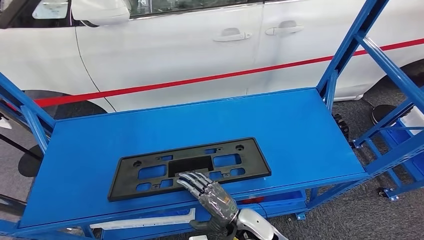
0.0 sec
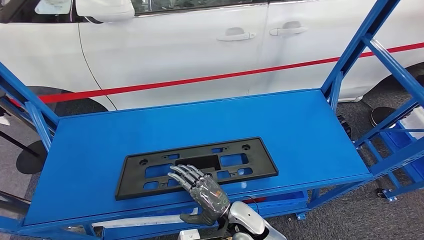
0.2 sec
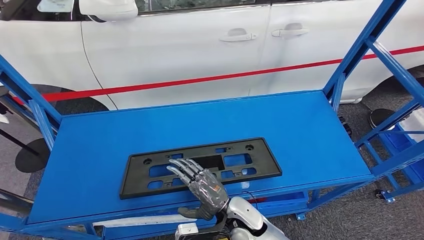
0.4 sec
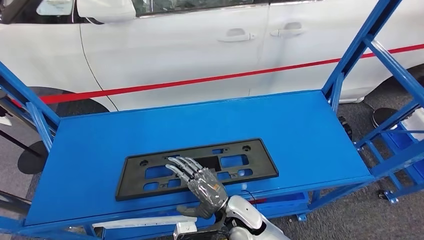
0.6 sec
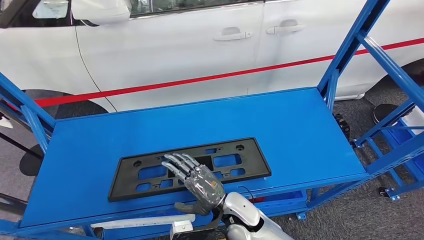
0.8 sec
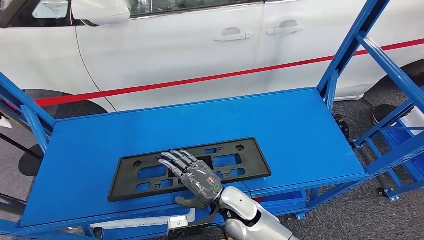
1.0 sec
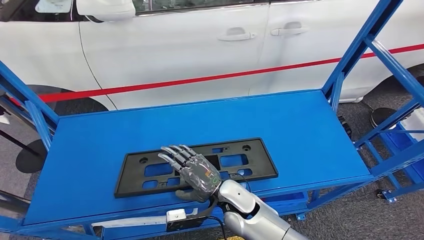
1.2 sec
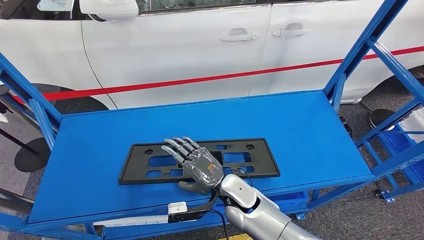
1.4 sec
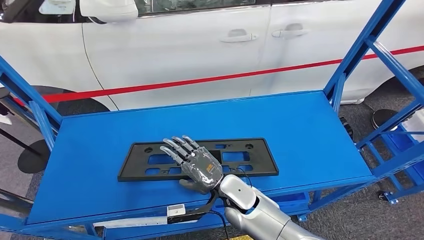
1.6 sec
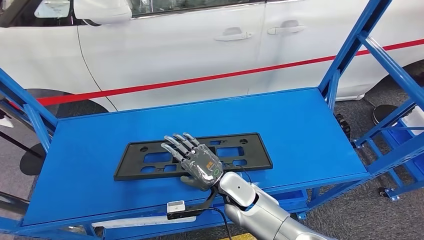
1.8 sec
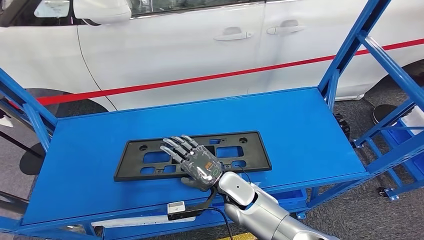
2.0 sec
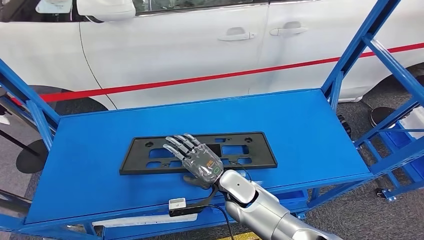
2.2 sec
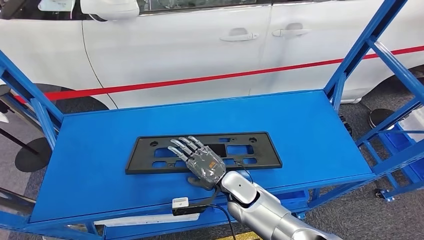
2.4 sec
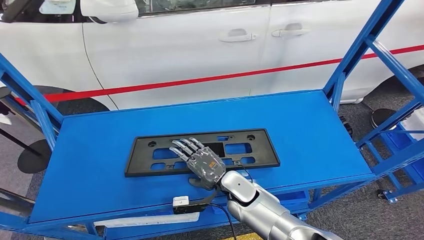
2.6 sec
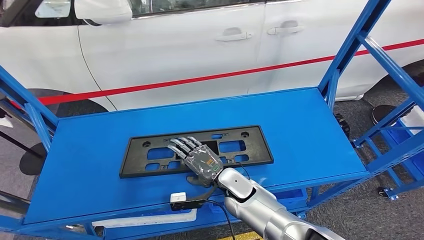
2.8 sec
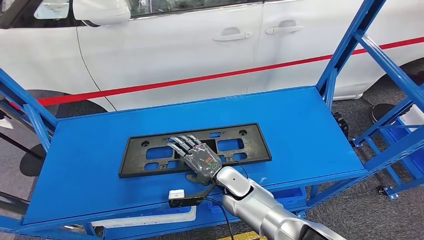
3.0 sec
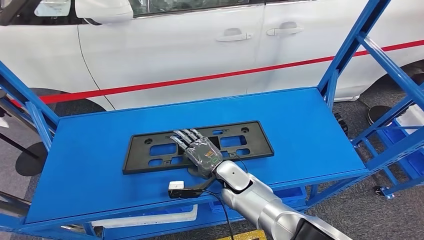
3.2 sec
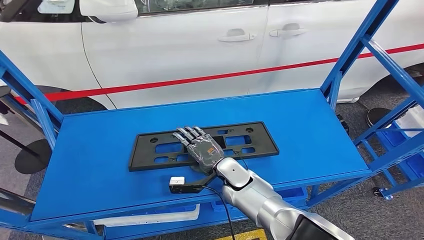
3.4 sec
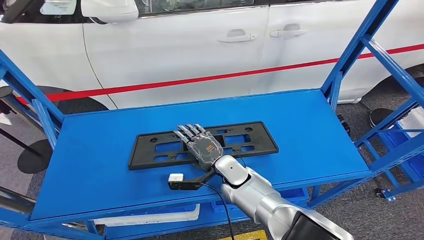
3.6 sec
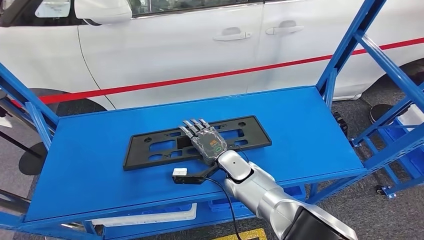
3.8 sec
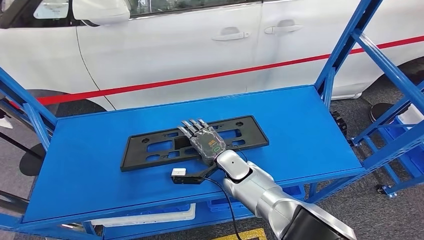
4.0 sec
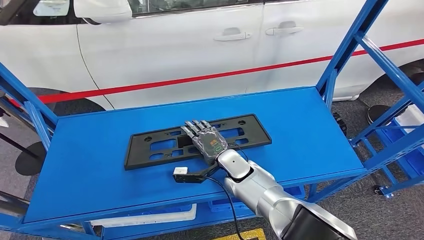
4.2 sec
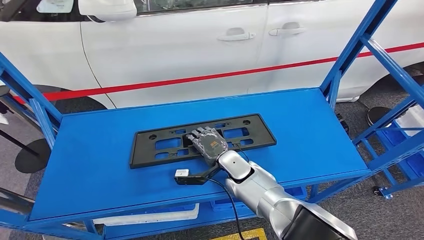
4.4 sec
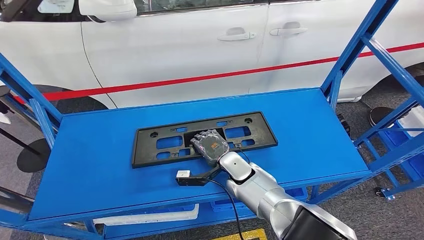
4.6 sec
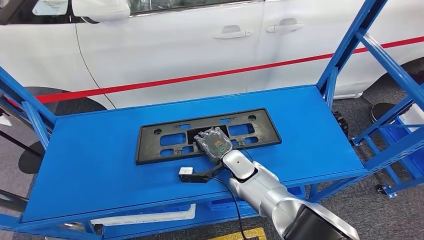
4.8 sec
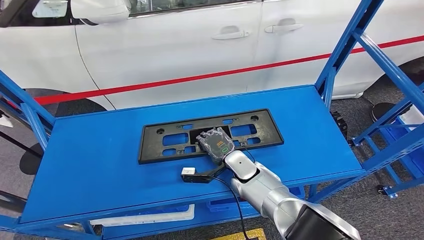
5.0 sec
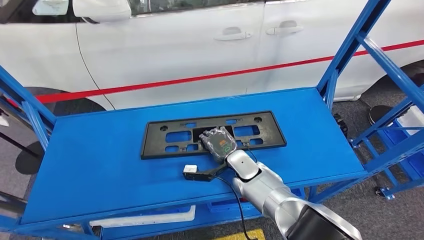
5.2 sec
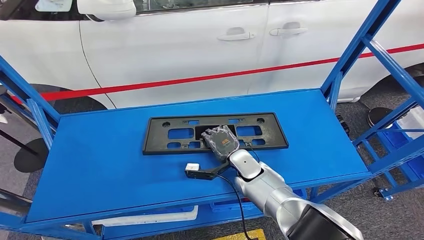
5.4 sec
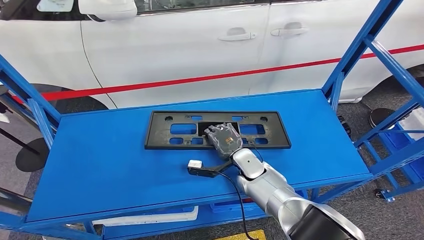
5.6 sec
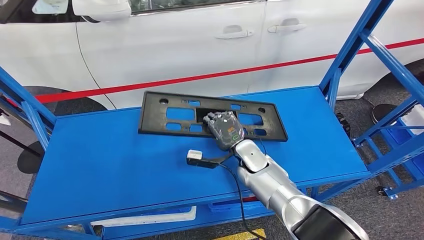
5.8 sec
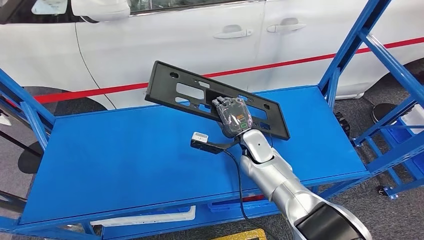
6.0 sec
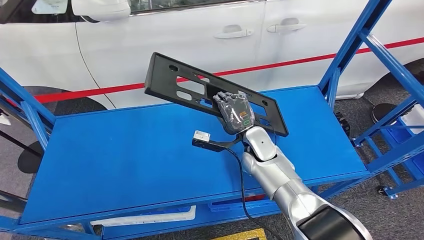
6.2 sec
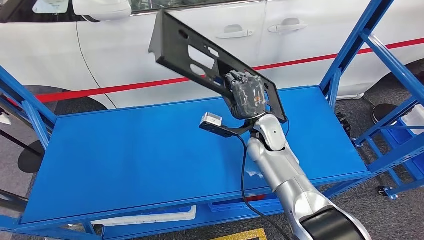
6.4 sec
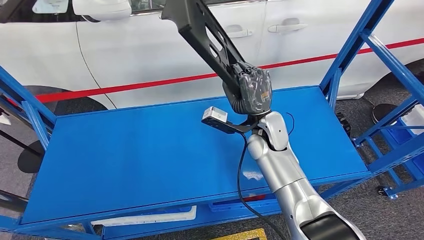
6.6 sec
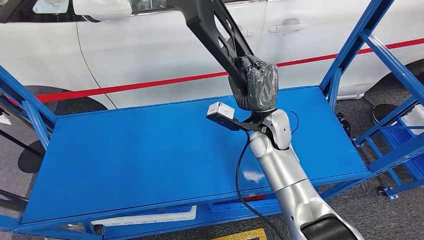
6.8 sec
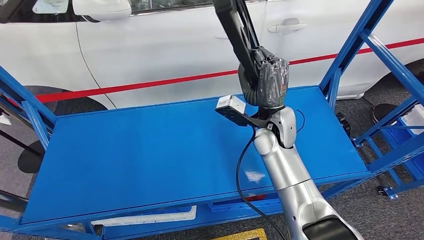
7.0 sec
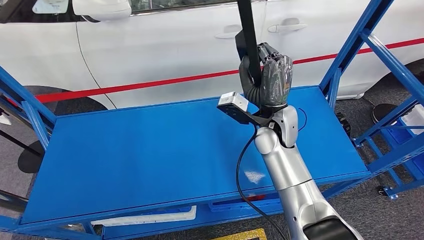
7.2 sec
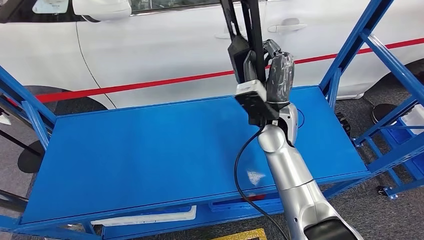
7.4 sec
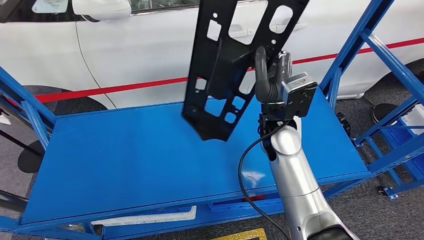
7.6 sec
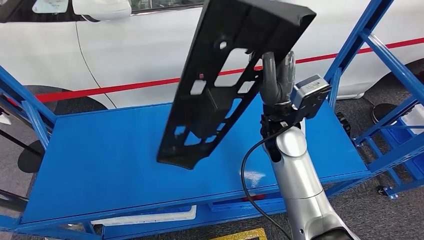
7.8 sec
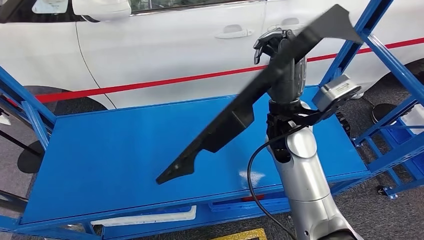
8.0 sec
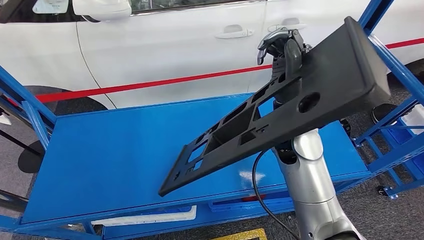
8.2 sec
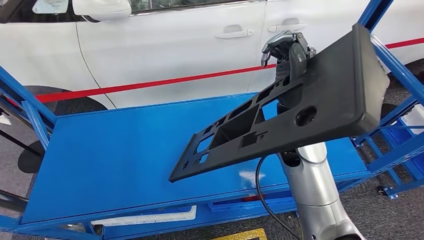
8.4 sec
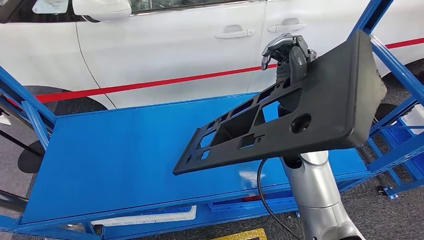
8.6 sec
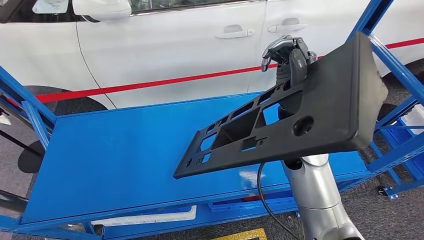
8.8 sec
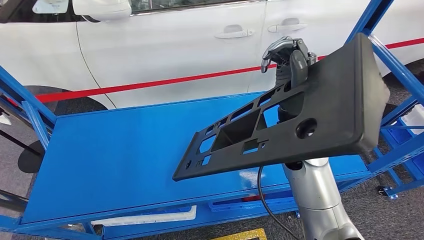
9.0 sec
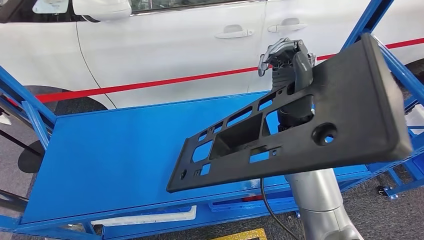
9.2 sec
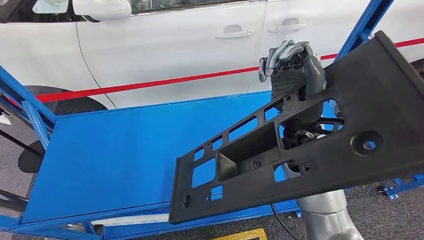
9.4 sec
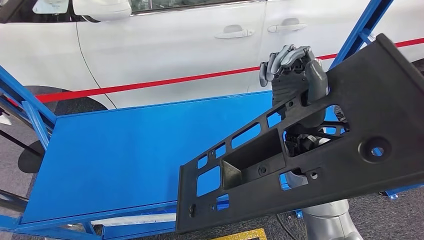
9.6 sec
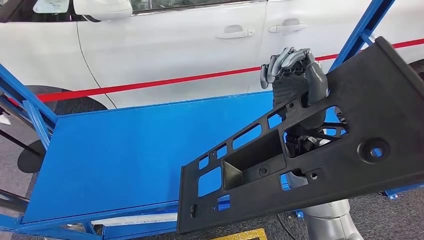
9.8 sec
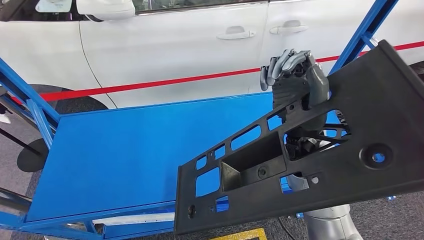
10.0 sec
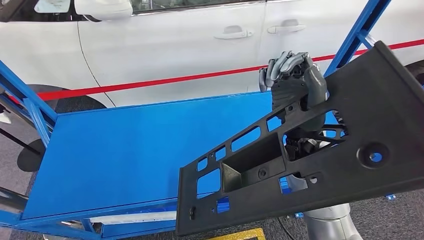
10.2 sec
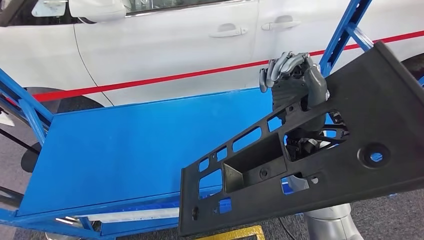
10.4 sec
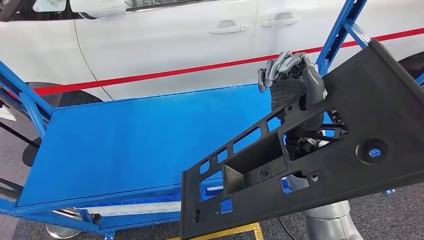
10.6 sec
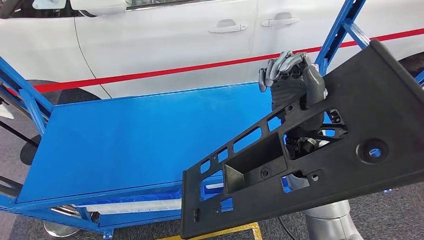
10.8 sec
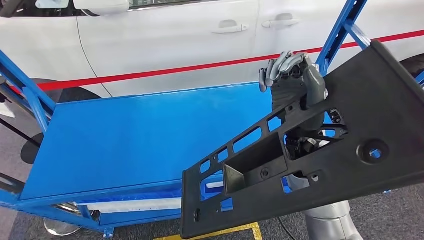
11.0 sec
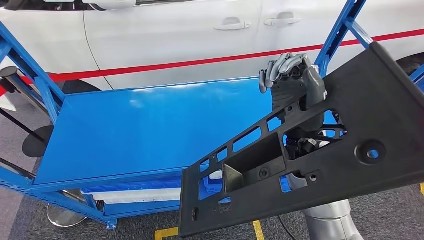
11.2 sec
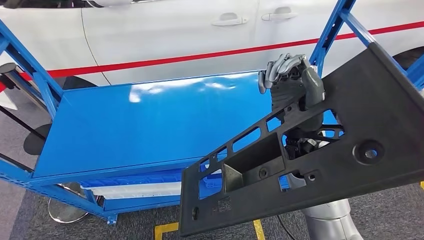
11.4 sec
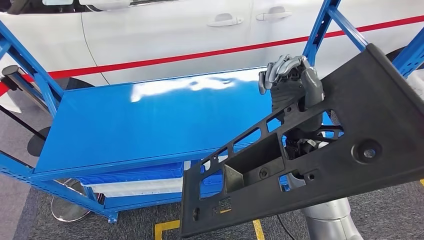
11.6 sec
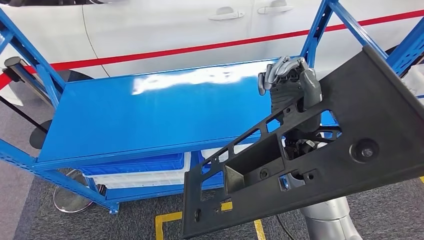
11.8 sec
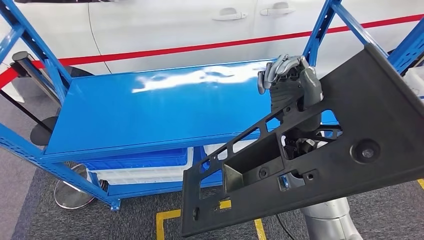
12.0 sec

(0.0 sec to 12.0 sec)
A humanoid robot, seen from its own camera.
Step, 0.0 sec - 8.0 sec: Pick up the large material from the shelf.

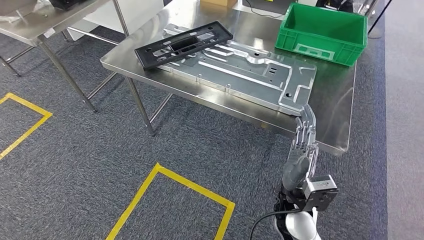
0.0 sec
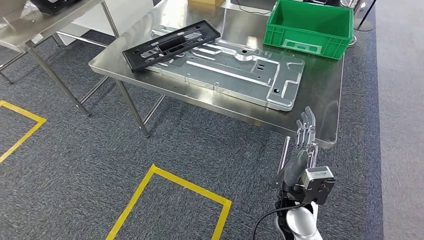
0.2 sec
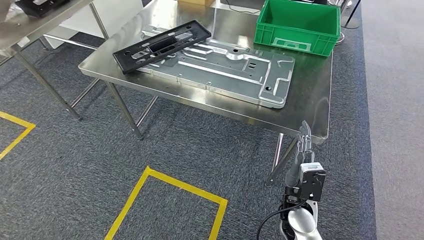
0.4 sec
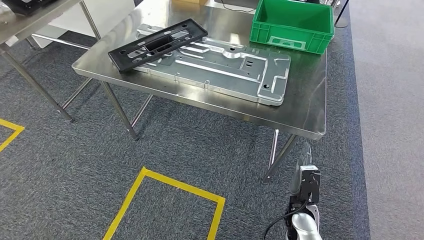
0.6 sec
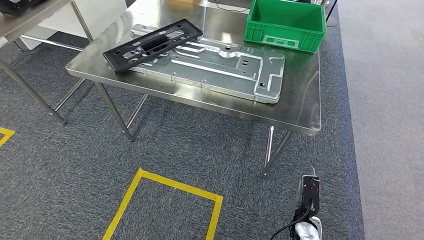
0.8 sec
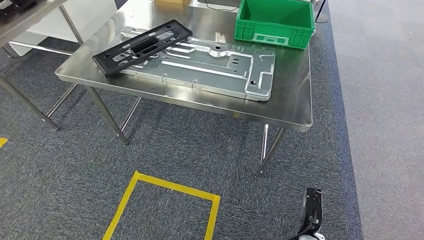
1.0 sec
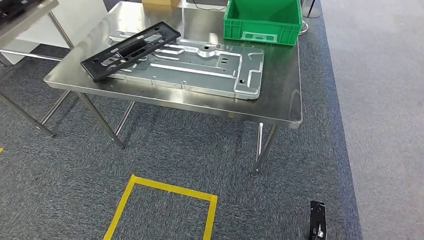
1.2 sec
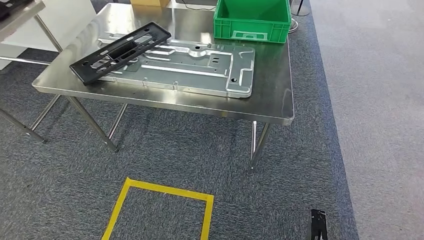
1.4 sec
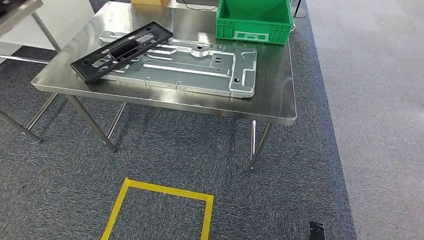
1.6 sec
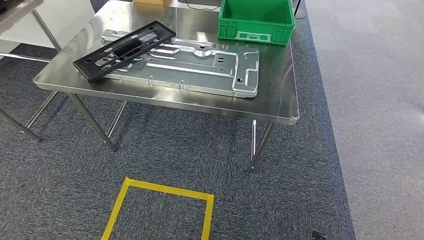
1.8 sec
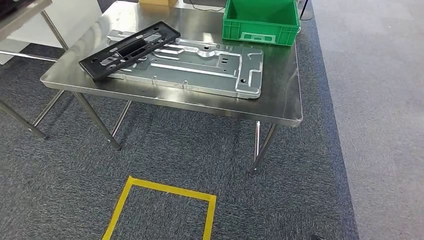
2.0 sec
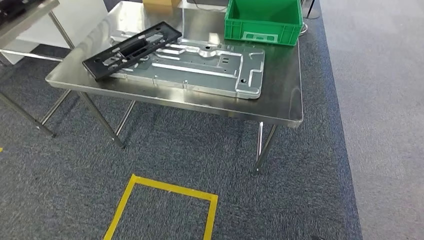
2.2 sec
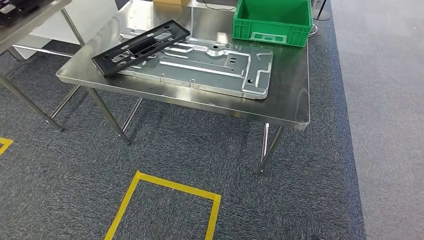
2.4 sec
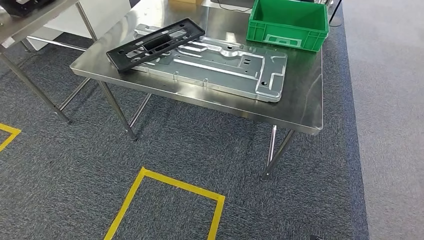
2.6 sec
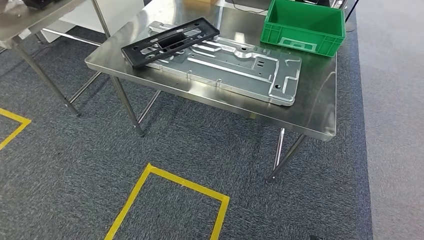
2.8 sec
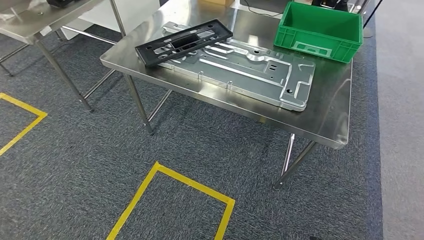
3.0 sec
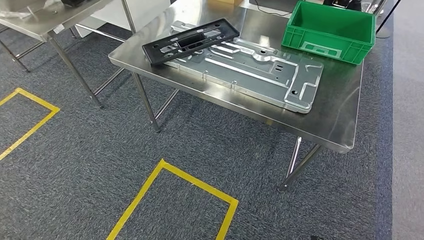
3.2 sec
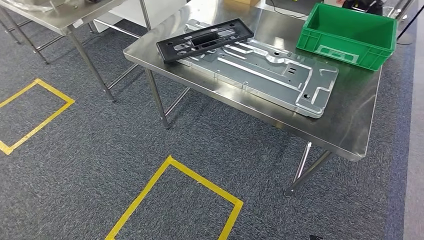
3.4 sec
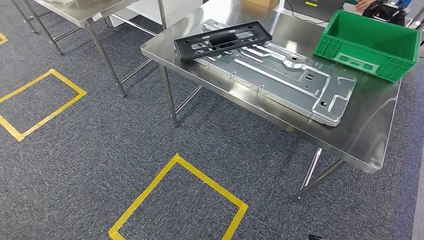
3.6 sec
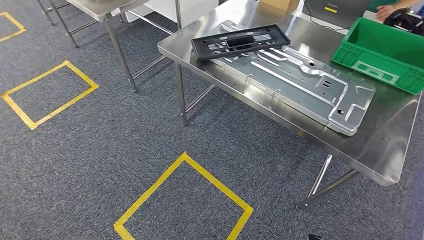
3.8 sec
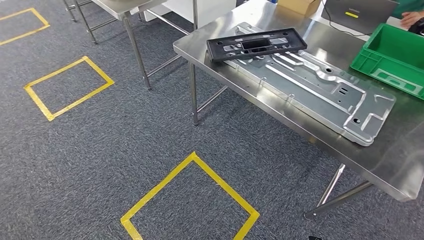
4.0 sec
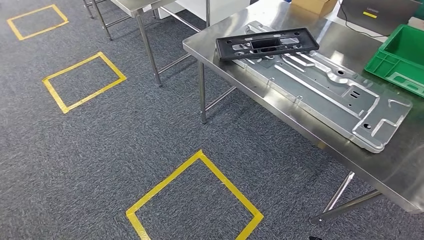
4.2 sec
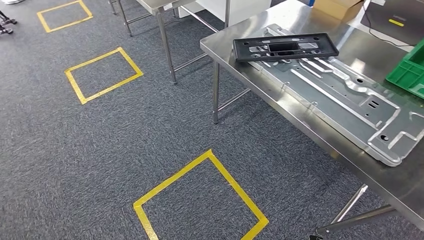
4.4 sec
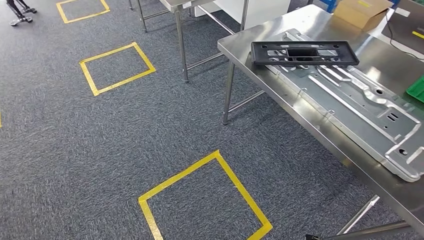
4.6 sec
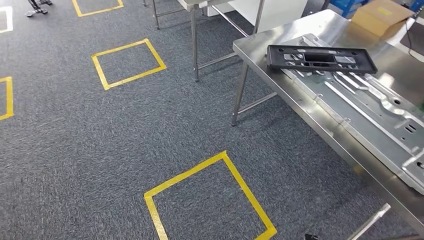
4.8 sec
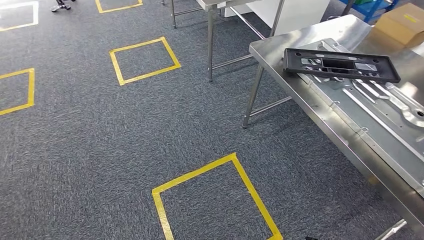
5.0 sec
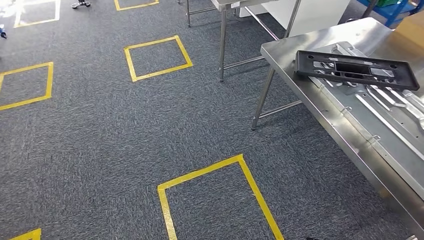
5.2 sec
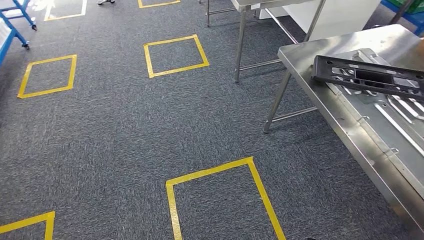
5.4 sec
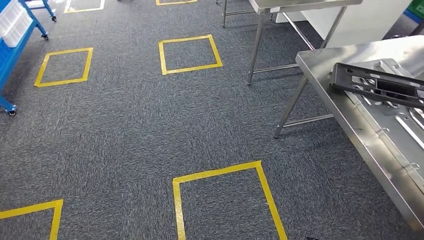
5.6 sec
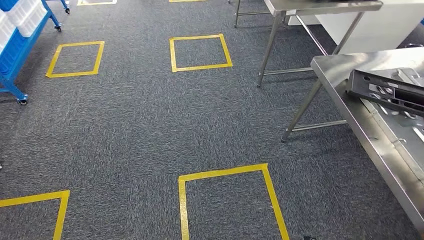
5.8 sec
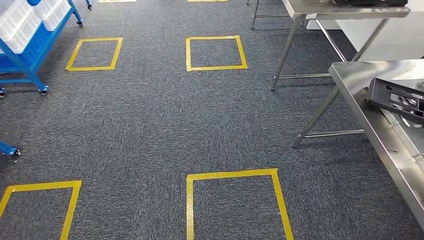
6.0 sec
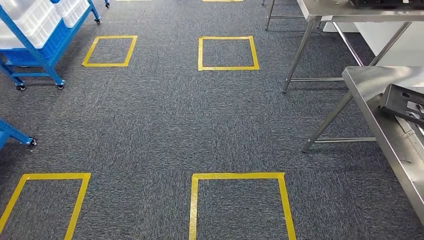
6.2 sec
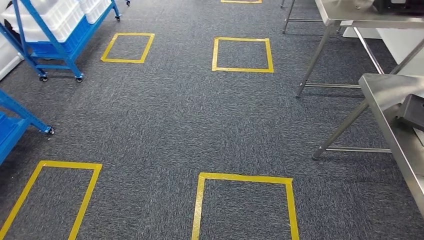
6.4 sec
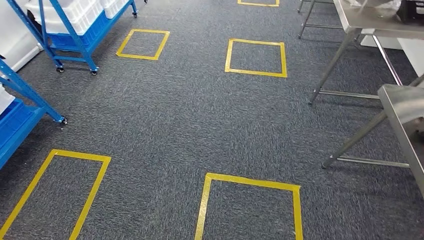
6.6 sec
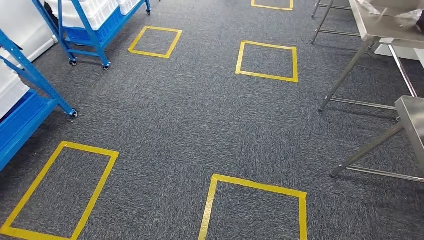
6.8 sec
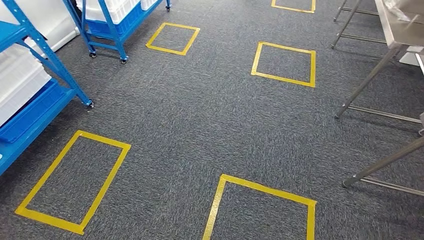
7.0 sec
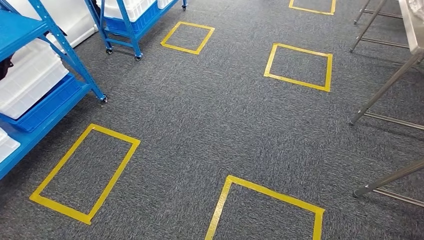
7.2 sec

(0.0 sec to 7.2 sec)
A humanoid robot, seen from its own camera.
Step, 0.0 sec - 5.0 sec: Insert the large material into the corresponding slot on the workbench.
